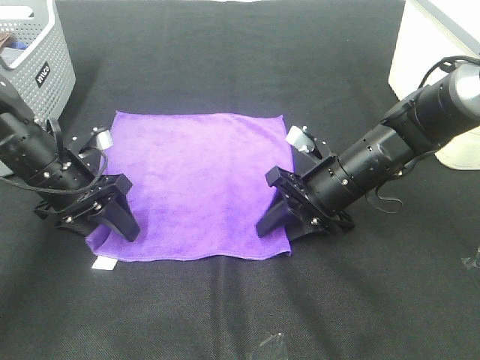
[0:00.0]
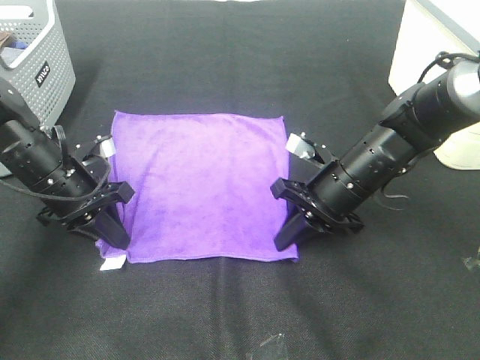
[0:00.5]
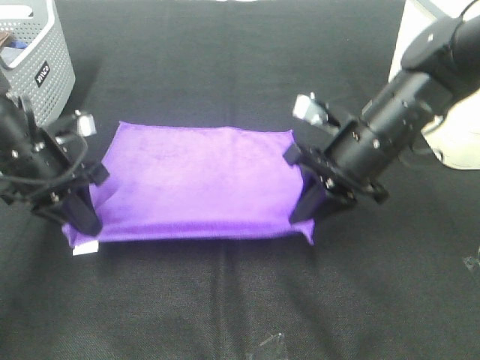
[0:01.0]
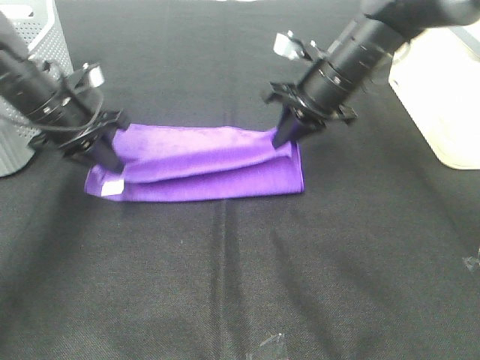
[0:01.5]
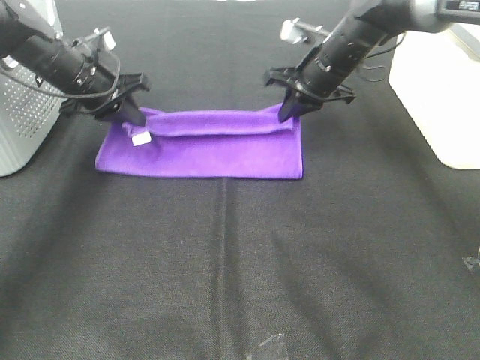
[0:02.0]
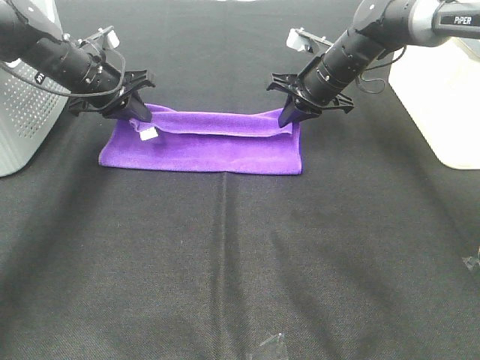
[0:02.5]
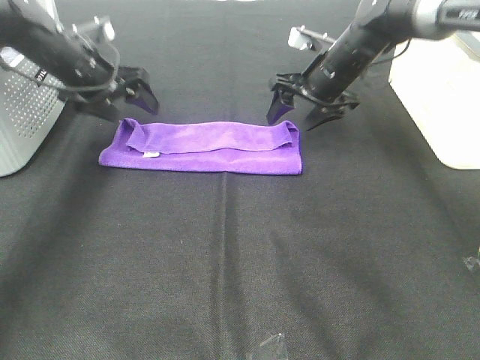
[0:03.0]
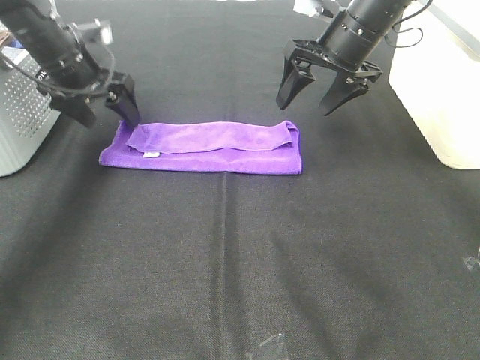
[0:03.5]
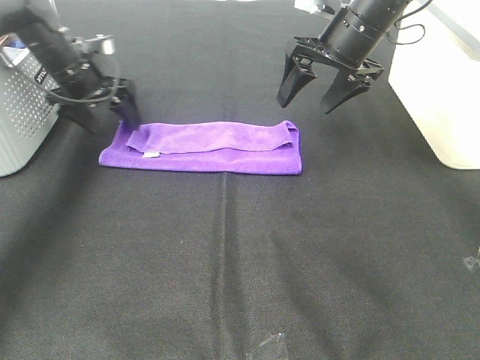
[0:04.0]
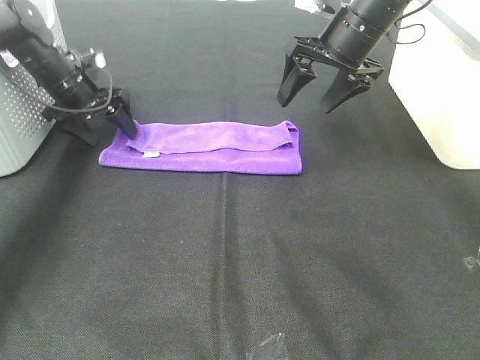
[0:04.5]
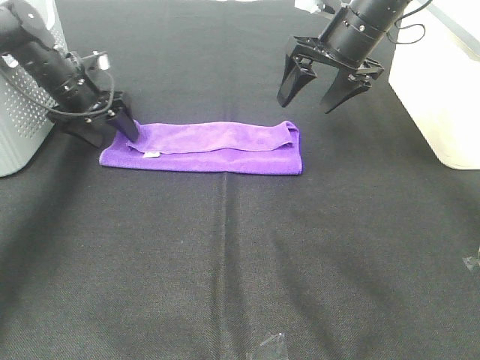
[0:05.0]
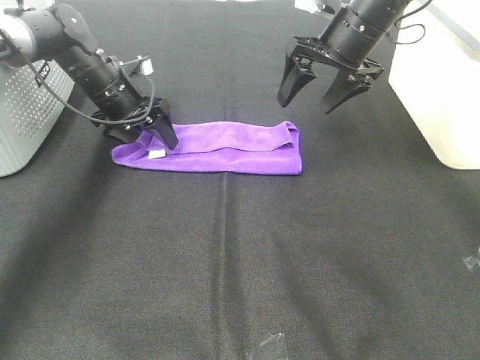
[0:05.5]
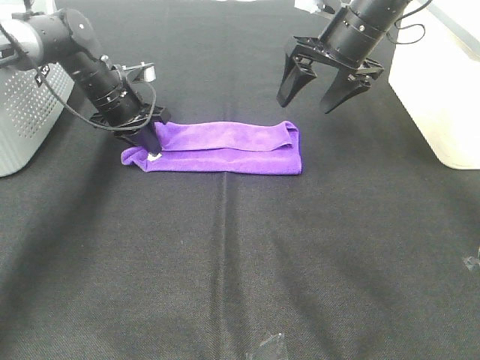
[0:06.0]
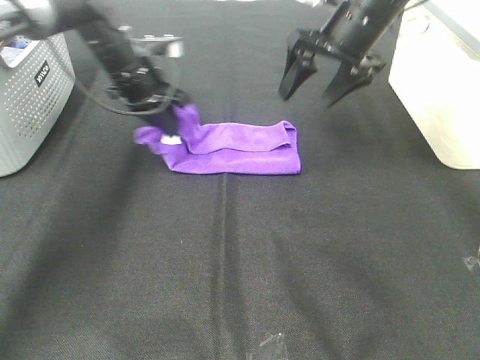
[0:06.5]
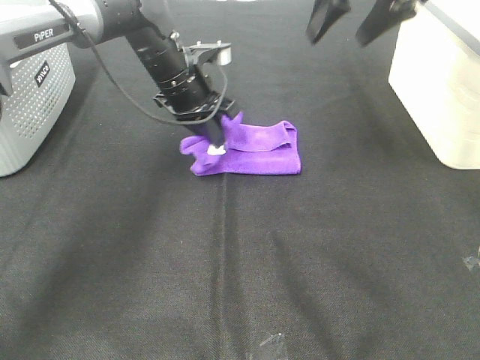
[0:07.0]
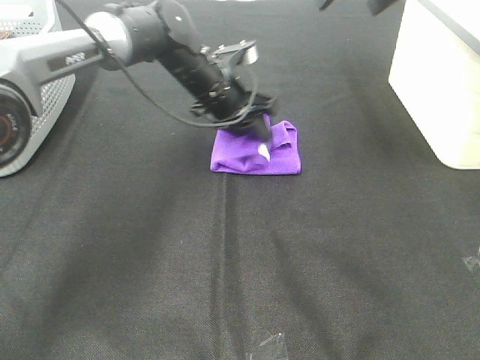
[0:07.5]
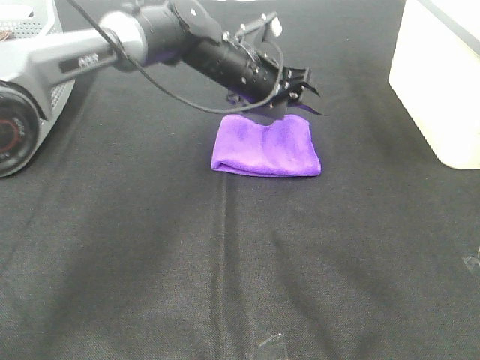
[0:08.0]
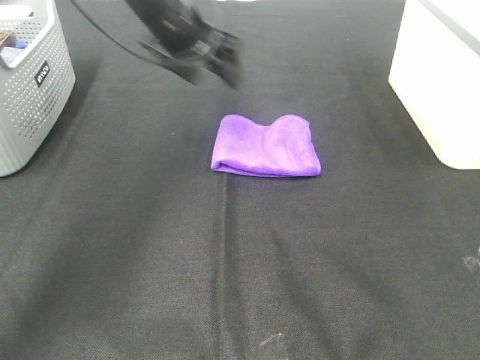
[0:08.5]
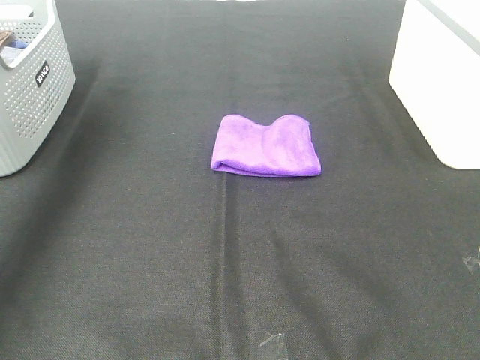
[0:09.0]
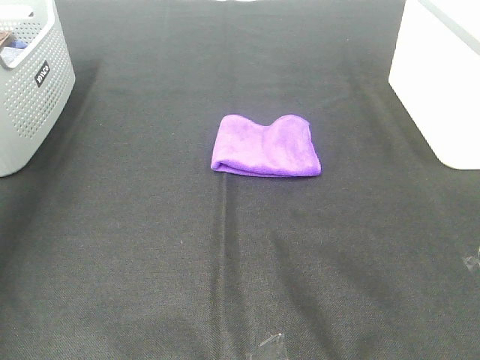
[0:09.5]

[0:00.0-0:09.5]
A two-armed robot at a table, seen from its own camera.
Task of the whole recording: Fold towels.
Step, 0:00.5 to 0:02.5: Left hand: fold the purple towel up.
Step, 0:00.5 to 0:02.5: Right hand: fold the purple towel up.
Step, 0:03.0 to 0:07.5: Left hand: fold the purple towel from left to right.
0:00.0 to 0:02.0: The grippers both shift forward and upward by roughly 15 cm. The right gripper closes its fingers. The left gripper closes its fingers.
0:02.0 to 0:04.0: The right gripper heads upward, covering some 5 cm, and opens its fingers. Meanwhile the left gripper ends up roughly 5 cm from where it was, and opens up.
0:04.0 to 0:05.5: The left gripper heads to the right, covering some 5 cm.
0:05.5 to 0:07.5: The left gripper goes some 15 cm to the right, and closes, then opens again; the right gripper moves upward, about 15 cm.
0:07.5 to 0:09.5: The right gripper heads backward, upward and to the right, covering roughly 20 cm. Meanwhile the left gripper goes some 40 cm to the left and upward.

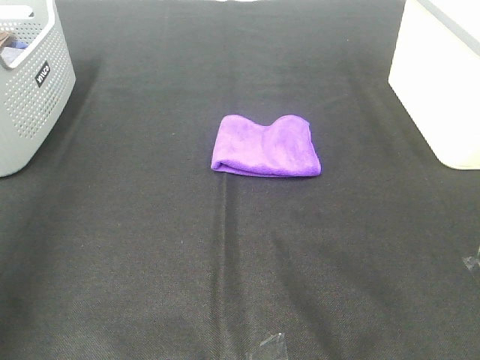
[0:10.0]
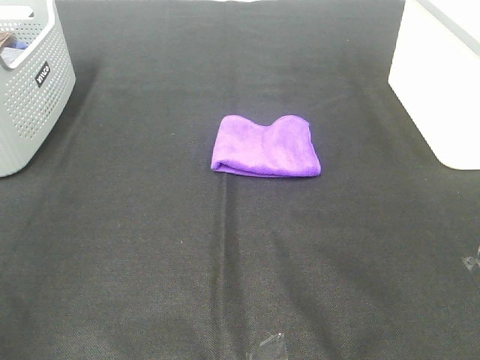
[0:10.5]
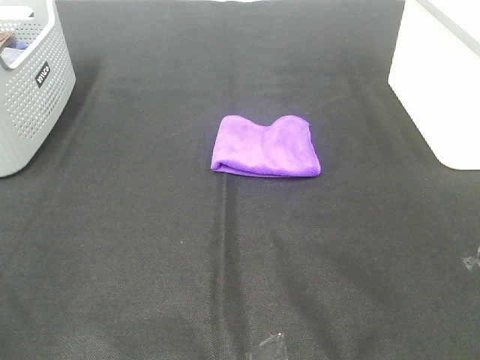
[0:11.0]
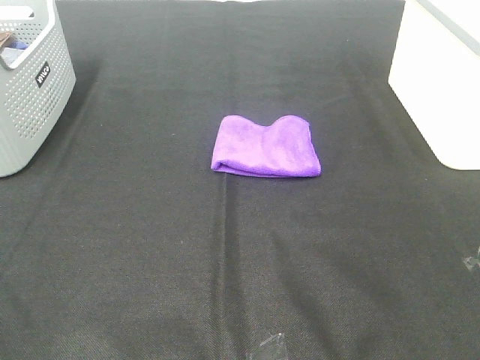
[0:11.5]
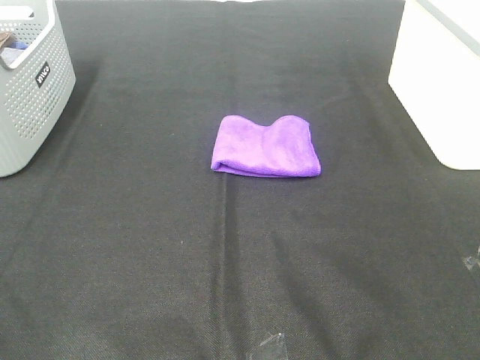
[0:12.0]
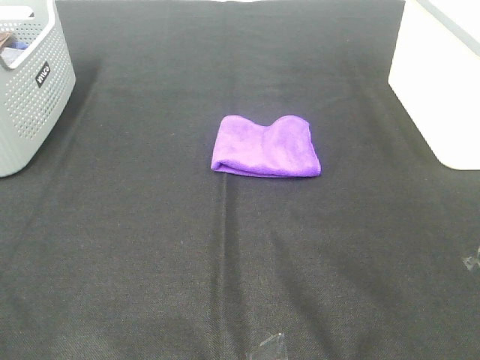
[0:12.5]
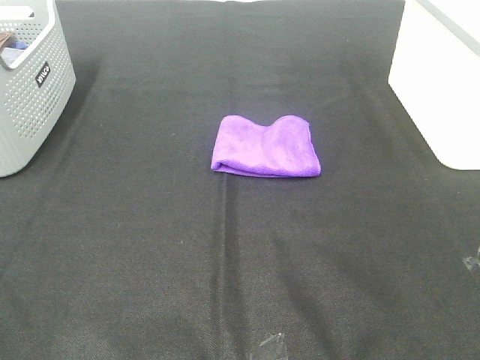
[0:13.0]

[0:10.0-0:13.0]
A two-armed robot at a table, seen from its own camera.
Task of the whole recording: Fold towels.
0:10.0 to 0:11.5: The left gripper heads backward and downward, covering about 20 cm.
